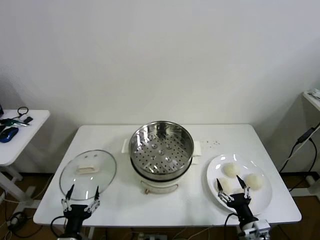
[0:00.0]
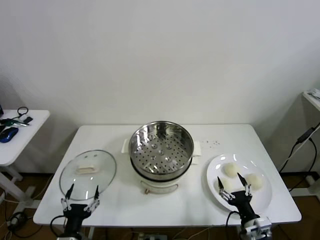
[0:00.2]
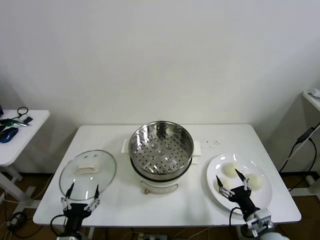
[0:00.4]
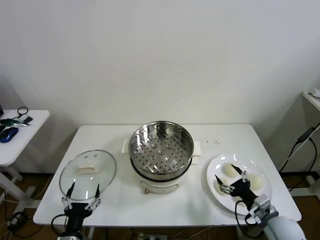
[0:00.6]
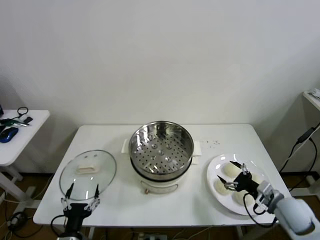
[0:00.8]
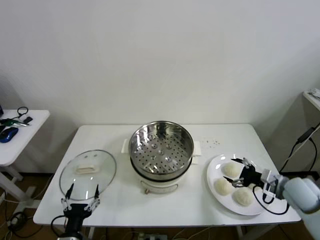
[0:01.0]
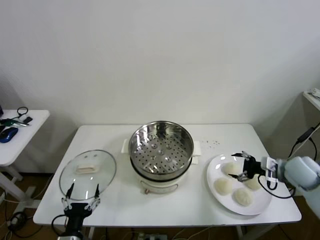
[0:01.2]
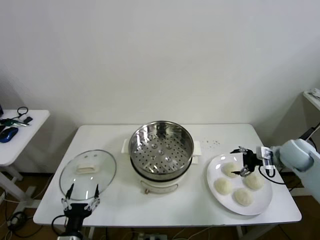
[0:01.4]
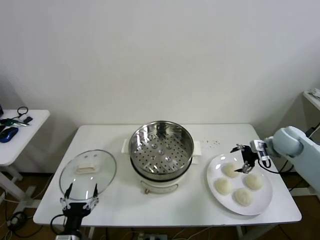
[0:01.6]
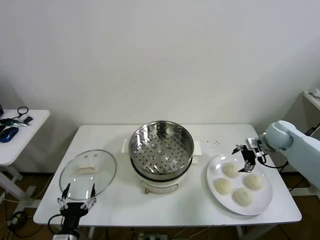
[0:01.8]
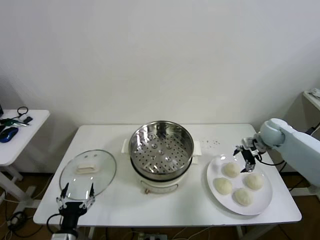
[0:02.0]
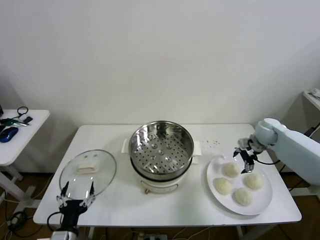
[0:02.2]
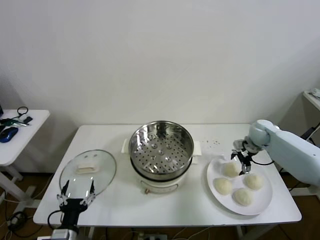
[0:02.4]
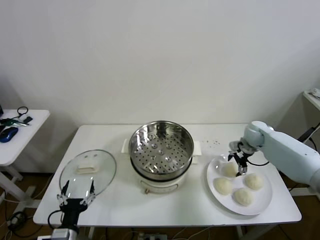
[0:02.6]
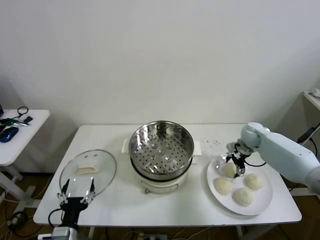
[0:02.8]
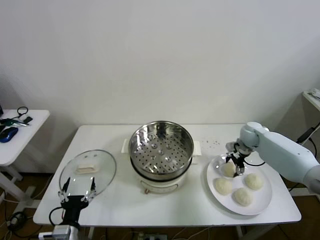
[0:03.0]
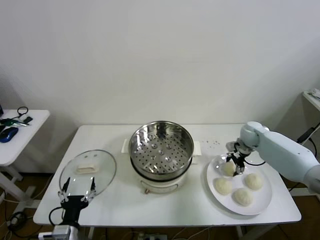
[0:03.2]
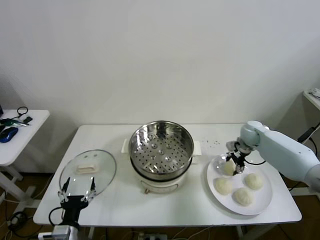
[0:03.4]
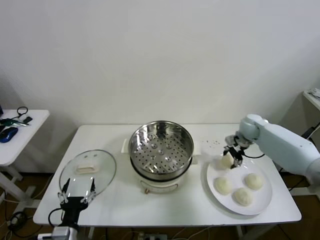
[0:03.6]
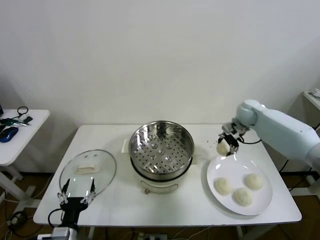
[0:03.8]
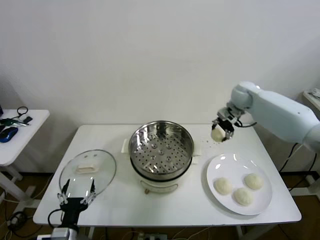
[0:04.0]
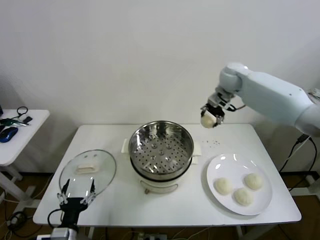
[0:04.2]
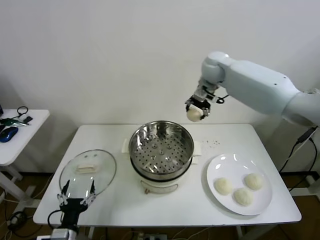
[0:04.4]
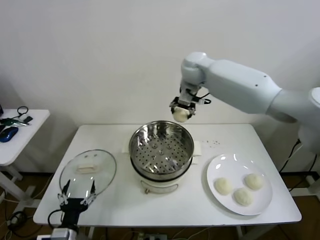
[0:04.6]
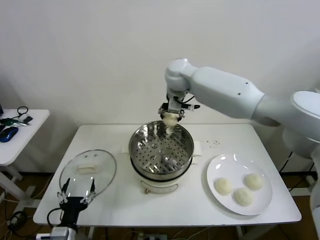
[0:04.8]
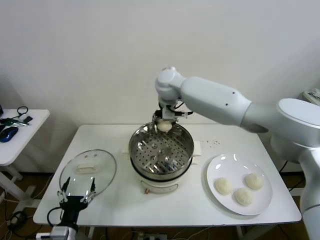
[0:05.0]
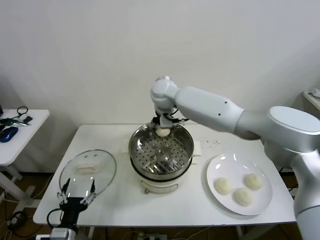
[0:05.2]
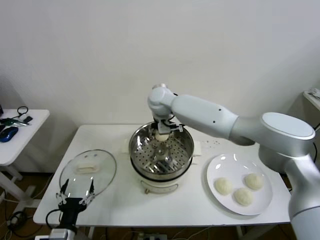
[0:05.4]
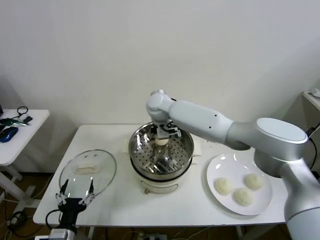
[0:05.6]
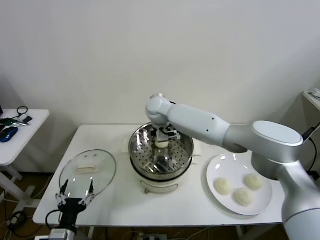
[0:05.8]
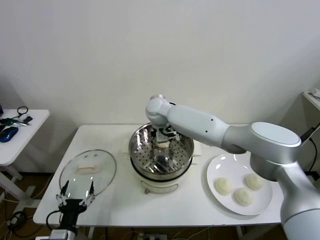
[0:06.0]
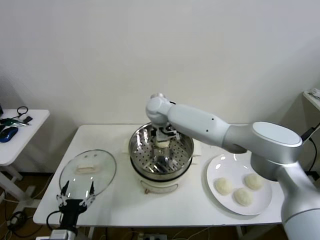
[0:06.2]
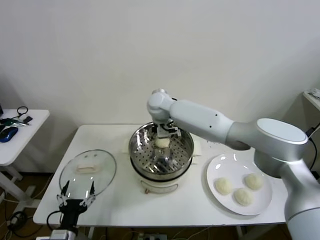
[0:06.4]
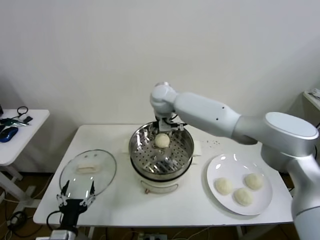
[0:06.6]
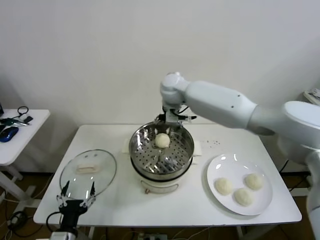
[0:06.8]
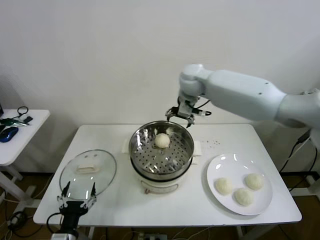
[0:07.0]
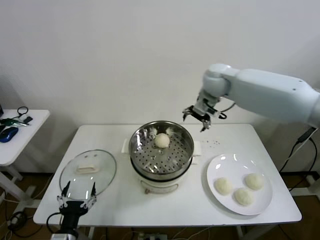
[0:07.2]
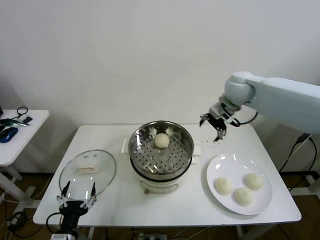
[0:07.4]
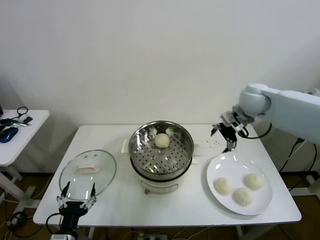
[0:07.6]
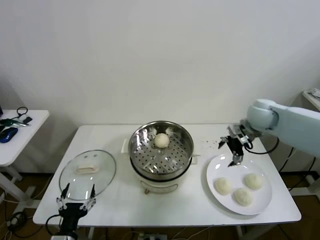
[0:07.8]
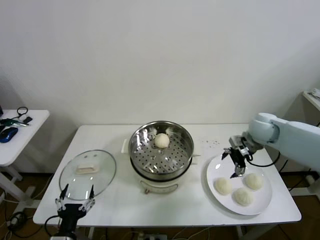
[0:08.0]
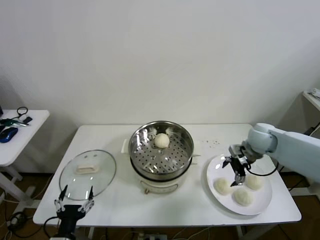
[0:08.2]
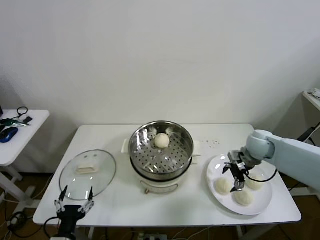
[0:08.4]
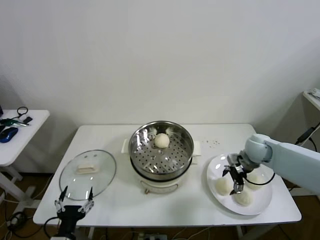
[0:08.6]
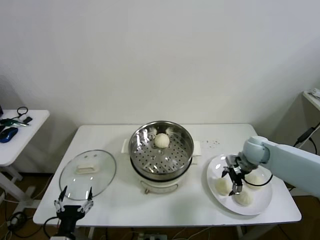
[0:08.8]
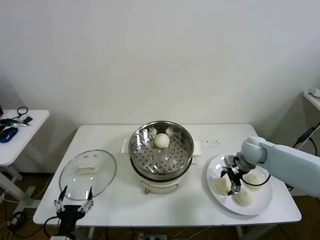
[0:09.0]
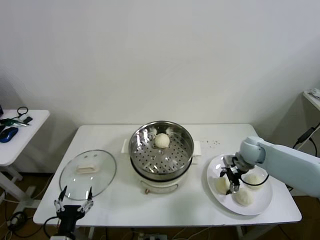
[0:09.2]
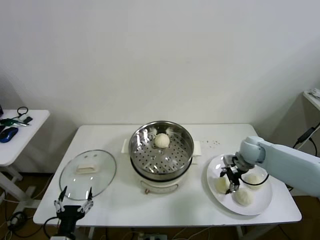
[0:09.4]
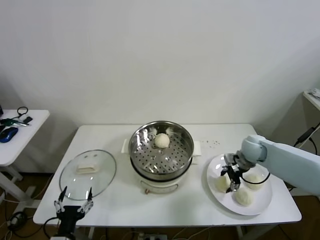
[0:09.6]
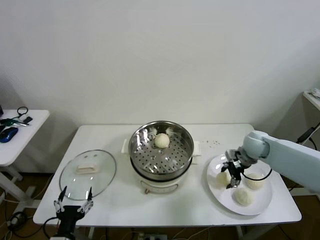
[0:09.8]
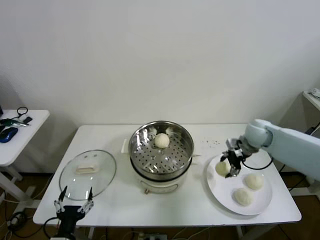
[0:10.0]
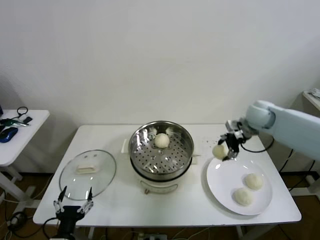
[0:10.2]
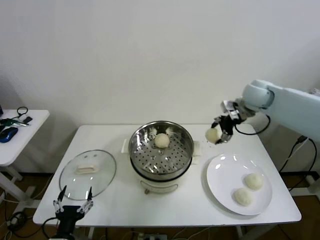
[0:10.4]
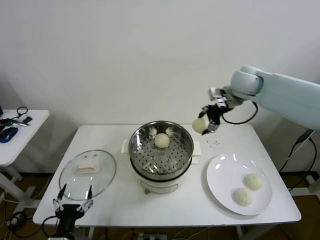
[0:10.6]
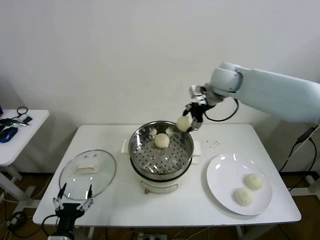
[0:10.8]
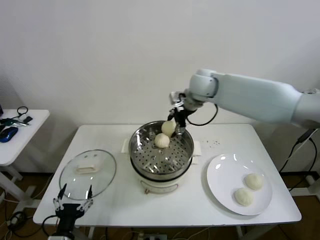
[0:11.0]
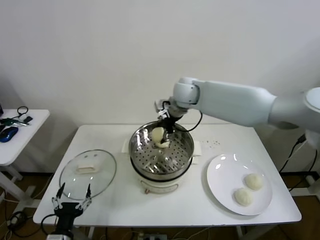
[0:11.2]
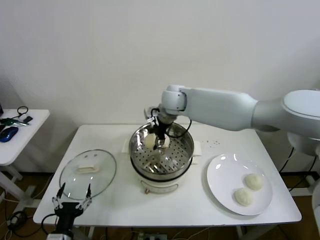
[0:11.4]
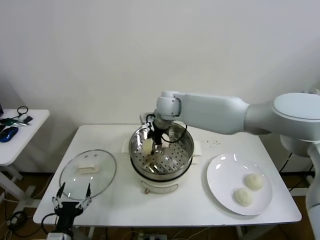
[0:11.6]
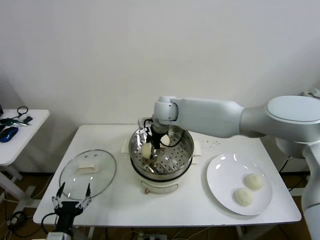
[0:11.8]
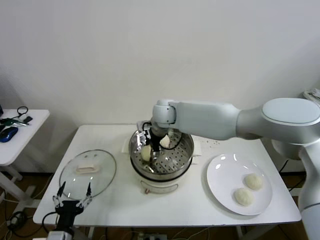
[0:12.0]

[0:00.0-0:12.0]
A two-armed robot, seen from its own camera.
Step, 0:00.0 to 0:03.2: Grasp the baozi in the plate with right gripper.
Step, 0:03.4 to 0:06.2: Place the baozi on the steamer with right gripper.
Step, 0:06.4 to 0:09.2: Grasp the baozi in the plate with right gripper.
0:01.6 to 0:03.0: The right gripper moves forward, downward and to the left, about 10 cm, and closes.
0:03.0 to 0:04.4: The right gripper goes about 35 cm upward and to the left.
0:04.4 to 0:06.0: The right gripper is displaced to the left and downward by approximately 20 cm, and opens its fingers.
0:06.0 to 0:07.6: The right gripper shifts about 30 cm to the right.
0:07.6 to 0:09.0: The right gripper moves downward, roughly 20 cm.
0:09.0 to 0:10.4: The right gripper goes some 25 cm upward, and closes its fingers.
0:10.4 to 0:12.0: The right gripper moves to the left, some 30 cm.

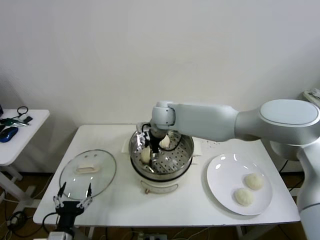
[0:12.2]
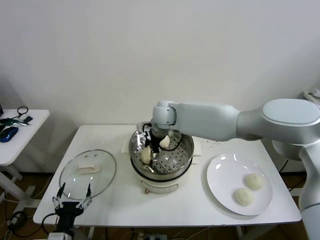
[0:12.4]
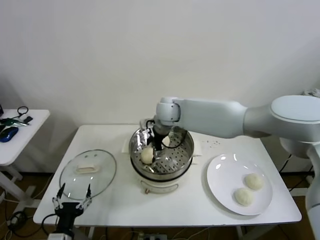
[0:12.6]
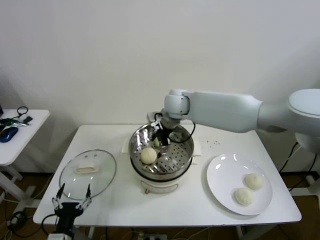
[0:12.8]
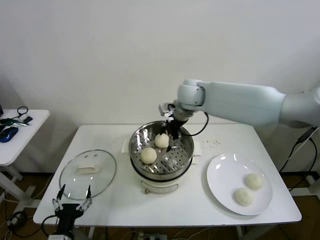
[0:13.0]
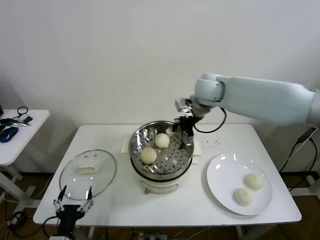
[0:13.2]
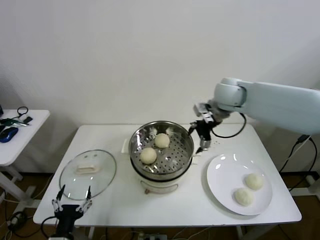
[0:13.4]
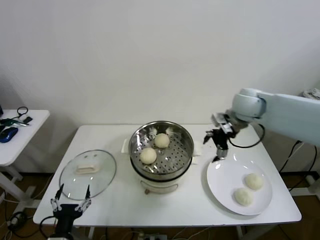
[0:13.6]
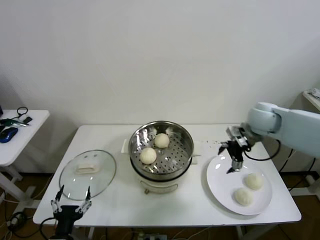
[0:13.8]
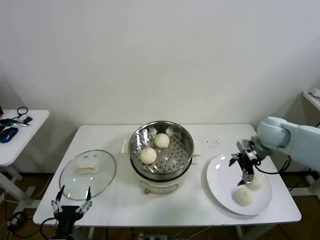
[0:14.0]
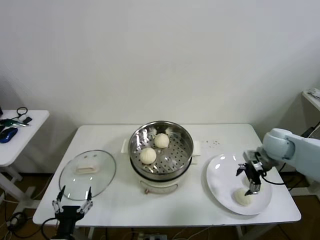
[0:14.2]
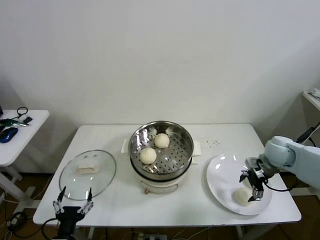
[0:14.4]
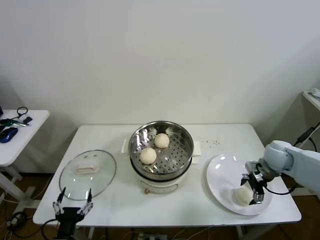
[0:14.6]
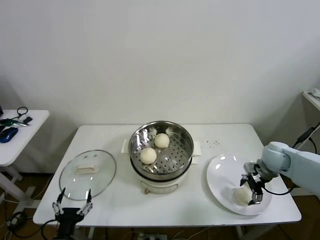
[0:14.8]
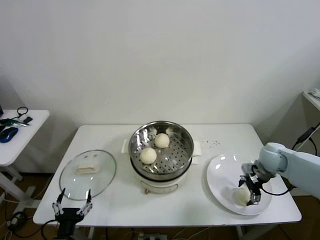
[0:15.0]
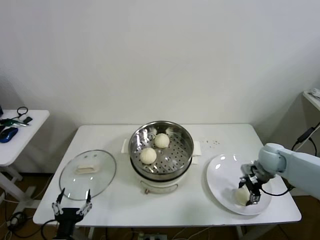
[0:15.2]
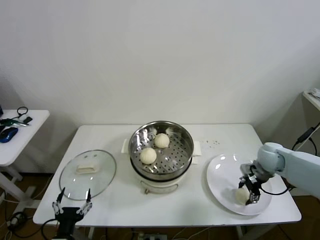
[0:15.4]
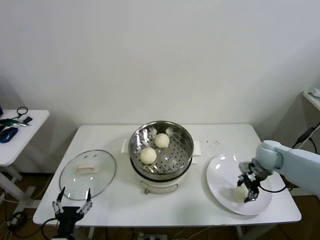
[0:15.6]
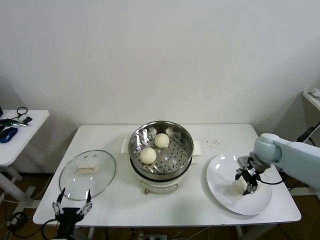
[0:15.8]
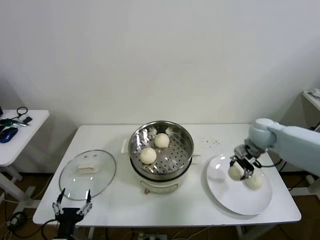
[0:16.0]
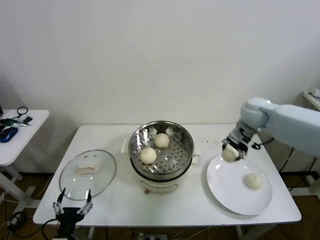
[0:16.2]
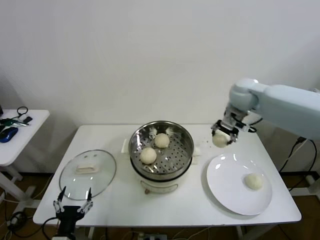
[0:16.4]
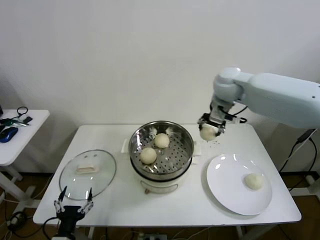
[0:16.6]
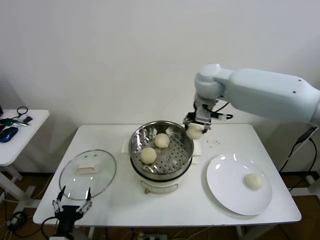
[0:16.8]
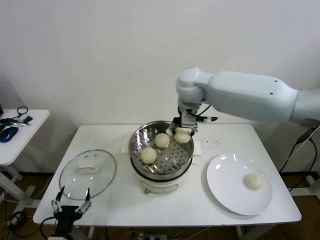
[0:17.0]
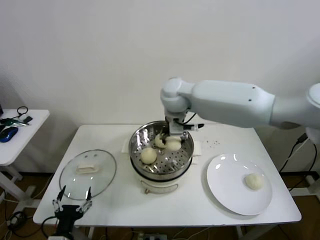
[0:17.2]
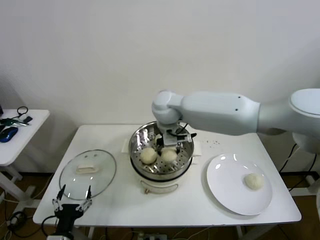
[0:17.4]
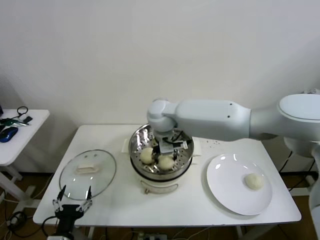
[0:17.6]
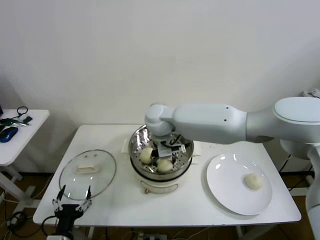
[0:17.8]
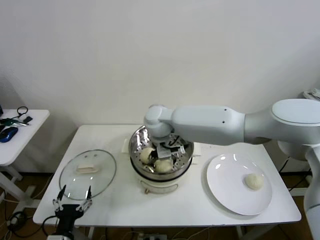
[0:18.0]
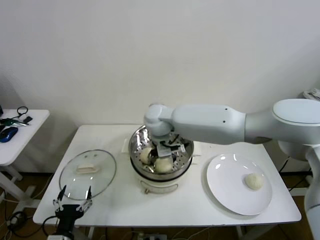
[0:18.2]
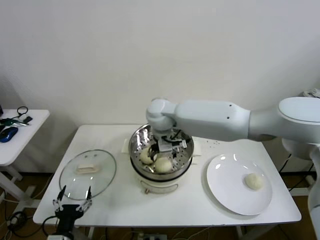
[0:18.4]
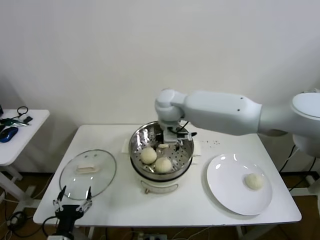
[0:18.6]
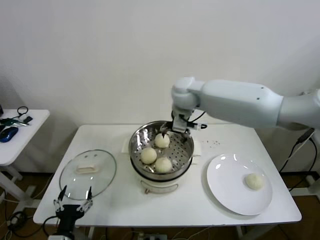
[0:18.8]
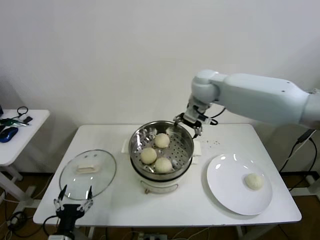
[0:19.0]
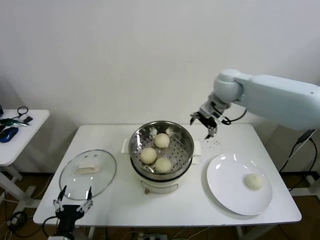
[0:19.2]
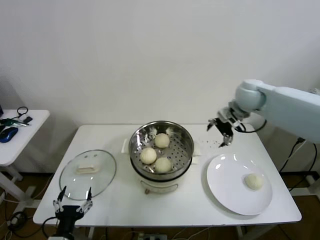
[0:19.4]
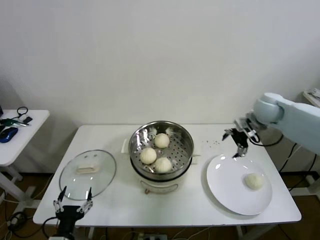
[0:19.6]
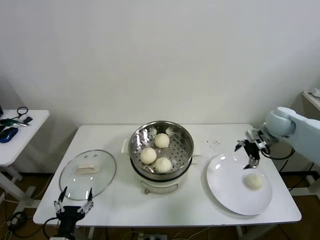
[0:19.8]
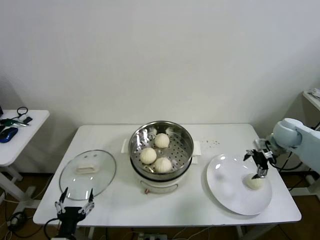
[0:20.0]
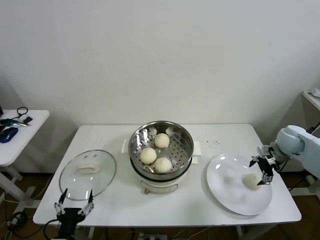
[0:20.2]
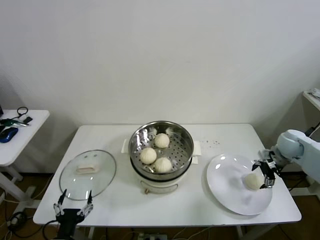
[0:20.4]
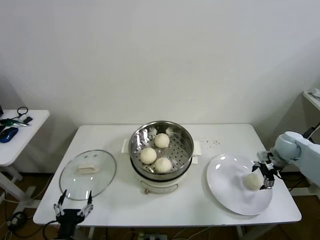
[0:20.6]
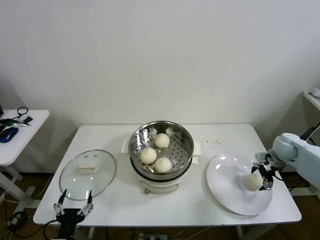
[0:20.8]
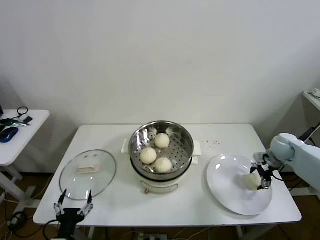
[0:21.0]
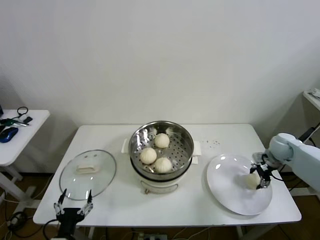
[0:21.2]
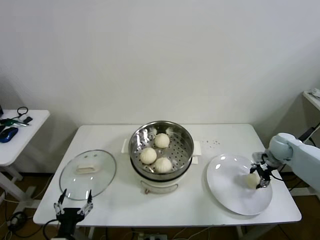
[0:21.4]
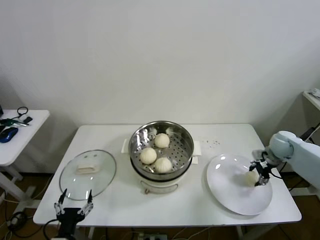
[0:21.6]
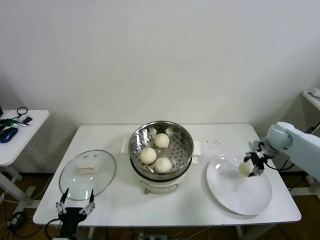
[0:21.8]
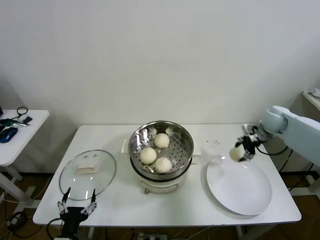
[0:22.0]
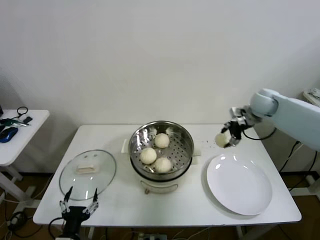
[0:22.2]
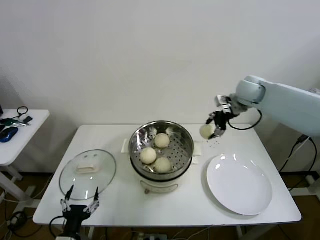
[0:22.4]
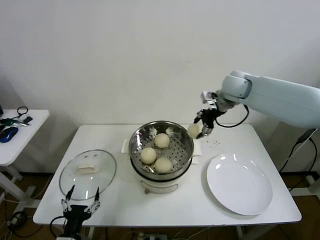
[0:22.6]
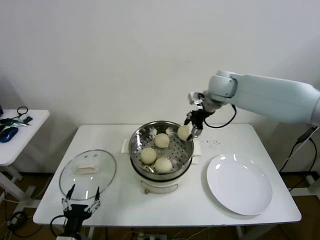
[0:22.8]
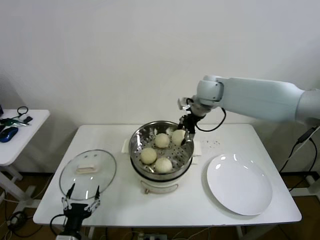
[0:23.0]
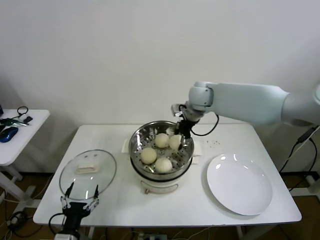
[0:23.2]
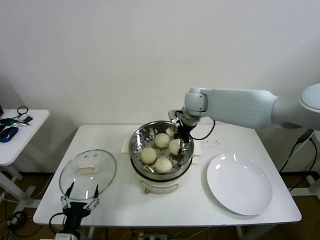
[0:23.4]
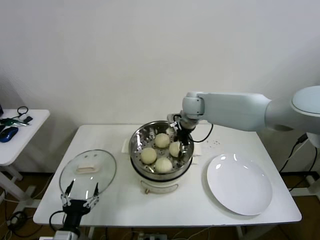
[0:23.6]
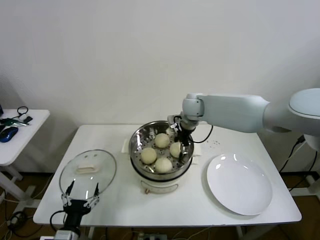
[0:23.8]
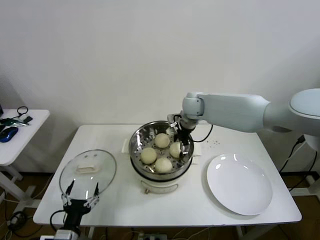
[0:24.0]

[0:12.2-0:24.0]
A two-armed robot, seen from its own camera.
Step, 0:12.4 to 0:15.4: Grasp the baozi in the plate with right gripper.
Step, 0:15.6 to 0:18.0: Place the baozi on the steamer with right gripper.
Step, 0:18.2 to 0:21.2: Grasp the baozi in the plate with right gripper.
Step, 0:21.4 to 0:23.8: Place the baozi on the steamer with right gripper.
0:12.2 to 0:13.6: The right gripper heads to the right, covering approximately 25 cm.
0:13.6 to 0:15.2: The right gripper shifts about 20 cm downward and to the right, and closes.
0:15.2 to 0:16.6: The right gripper moves upward and to the left, roughly 30 cm.
0:16.6 to 0:18.2: The right gripper moves to the left and downward, roughly 25 cm, and opens up.
0:18.2 to 0:19.6: The right gripper is displaced to the right by roughly 35 cm.
0:19.6 to 0:21.0: The right gripper travels downward and to the right by roughly 20 cm.
0:21.0 to 0:22.6: The right gripper goes approximately 30 cm to the left, upward and forward, and closes its fingers.
0:22.6 to 0:24.0: The right gripper goes roughly 15 cm to the left and downward, and opens.
